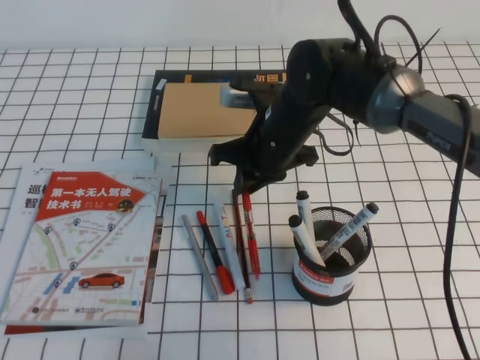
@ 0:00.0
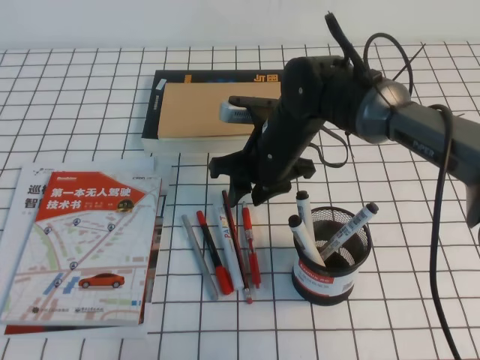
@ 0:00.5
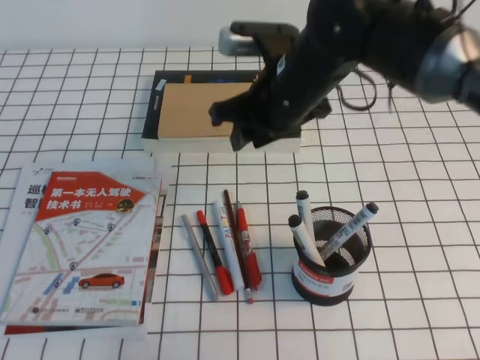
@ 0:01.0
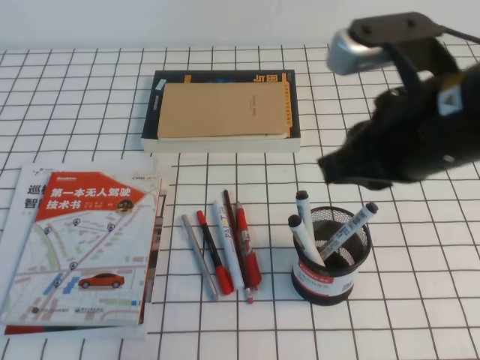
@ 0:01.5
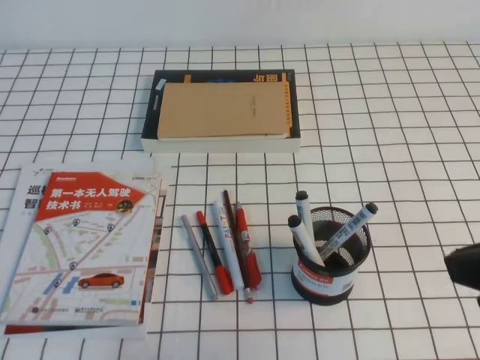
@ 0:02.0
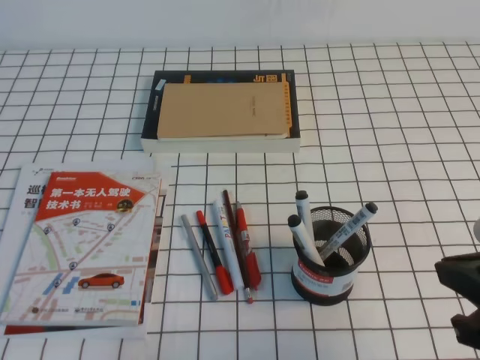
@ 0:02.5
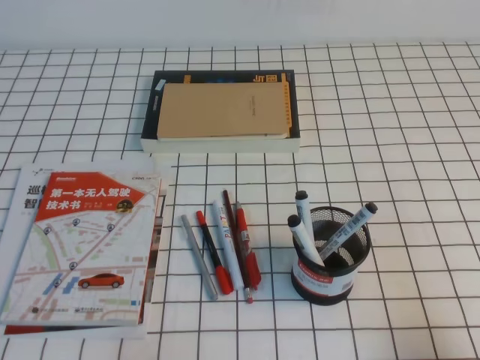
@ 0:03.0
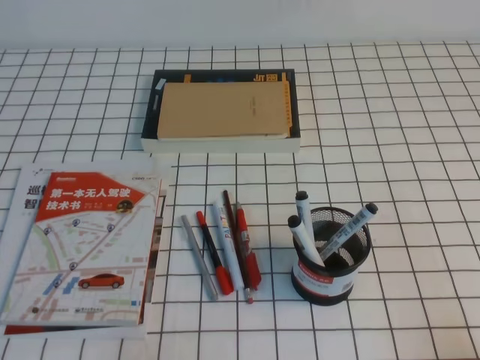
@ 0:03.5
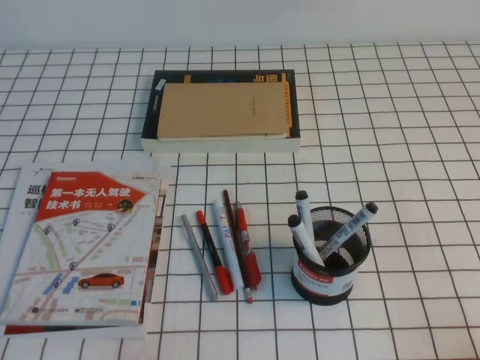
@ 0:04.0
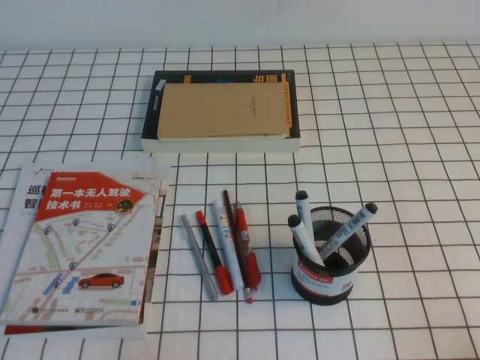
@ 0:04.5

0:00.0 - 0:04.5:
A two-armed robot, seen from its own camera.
Step, 0:00.0 - 0:04.5: Pick up the pen from the pen holder.
0:00.0 - 0:02.0: The right gripper goes approximately 35 cm backward, to the right and upward, and opens, then closes again.
0:02.0 - 0:04.5: The right gripper goes roughly 25 cm downward, to the right and backward.

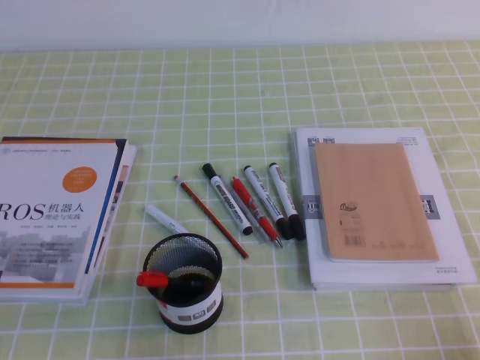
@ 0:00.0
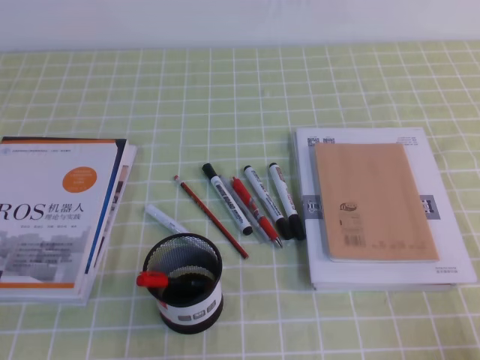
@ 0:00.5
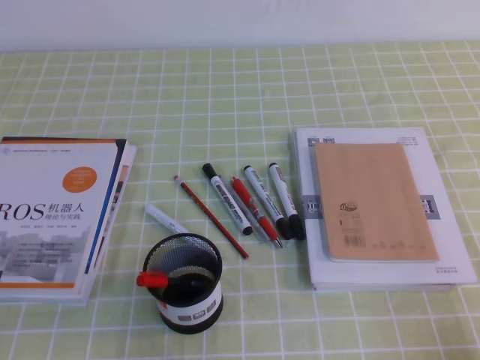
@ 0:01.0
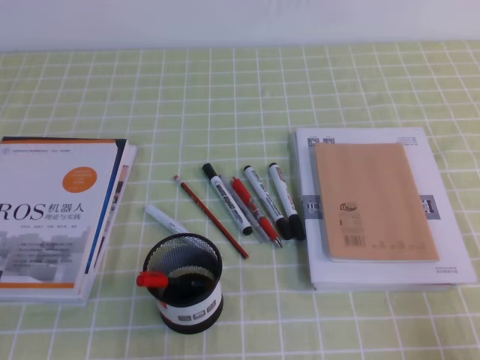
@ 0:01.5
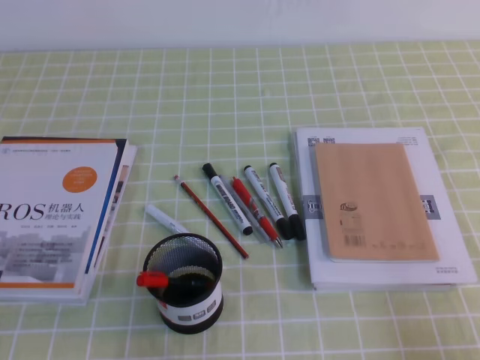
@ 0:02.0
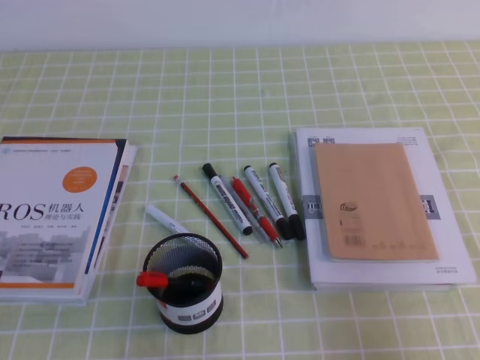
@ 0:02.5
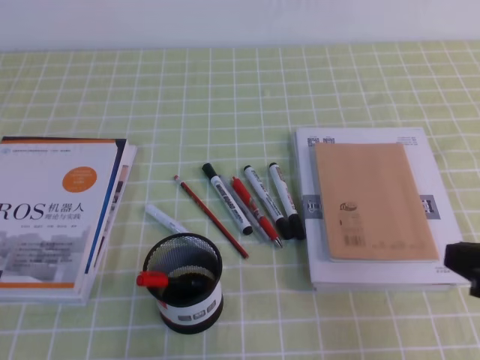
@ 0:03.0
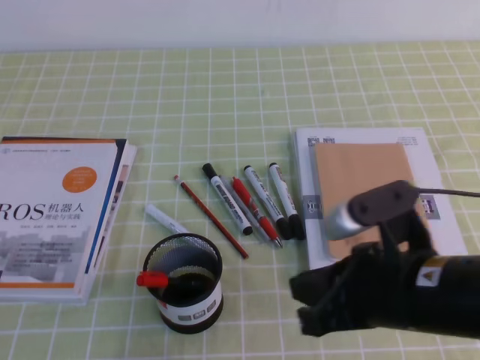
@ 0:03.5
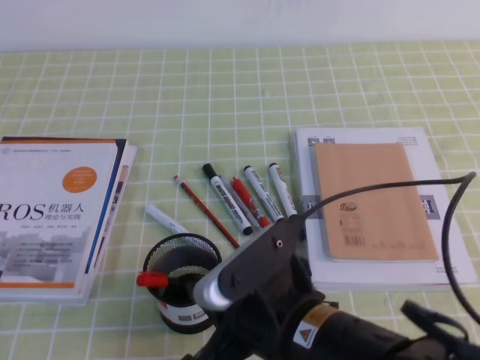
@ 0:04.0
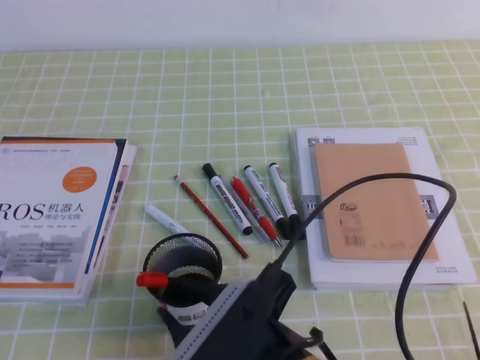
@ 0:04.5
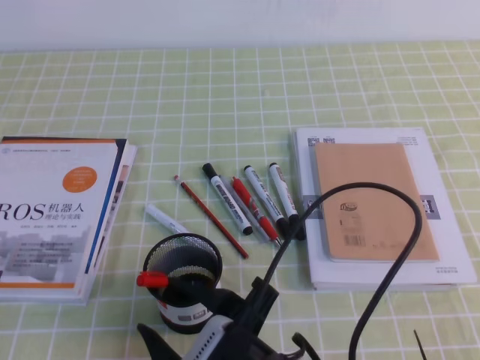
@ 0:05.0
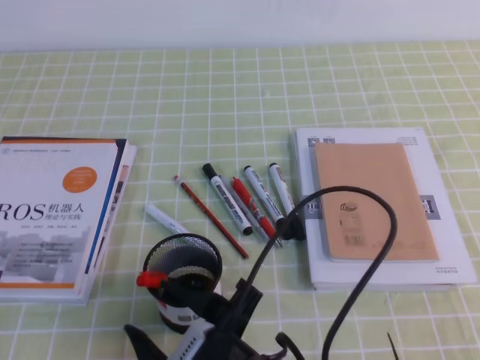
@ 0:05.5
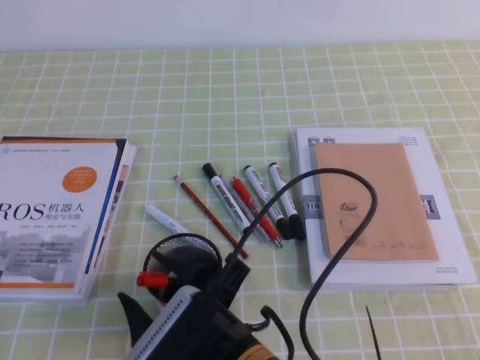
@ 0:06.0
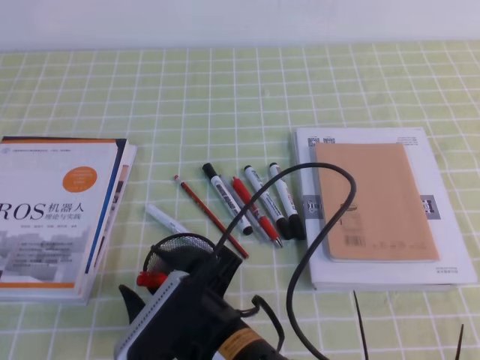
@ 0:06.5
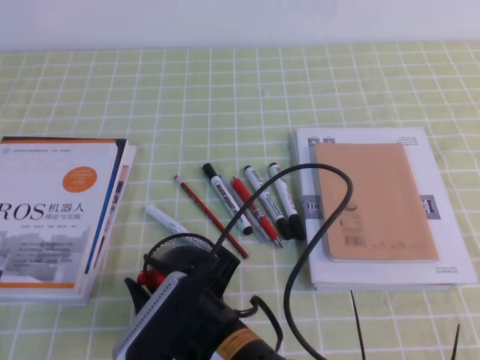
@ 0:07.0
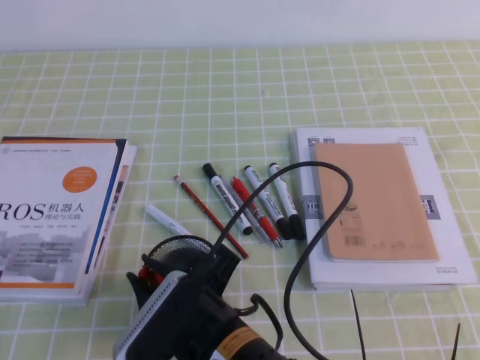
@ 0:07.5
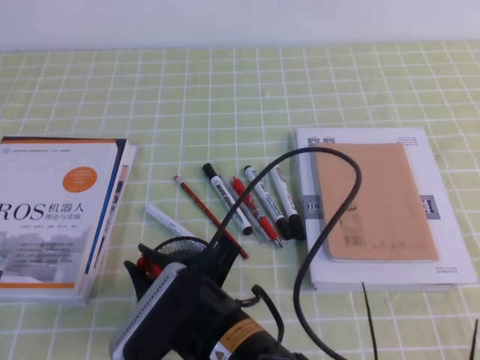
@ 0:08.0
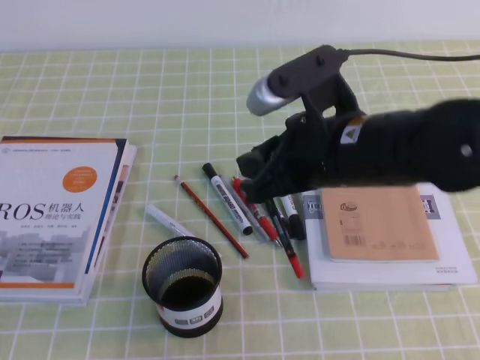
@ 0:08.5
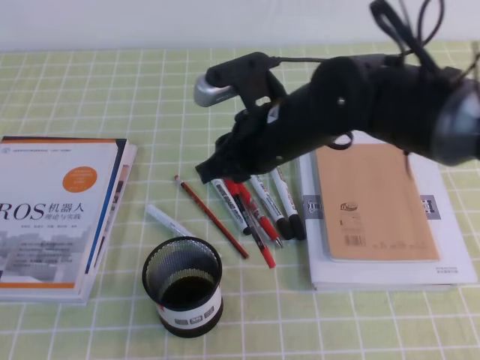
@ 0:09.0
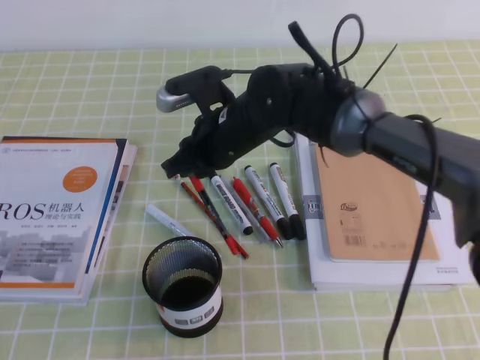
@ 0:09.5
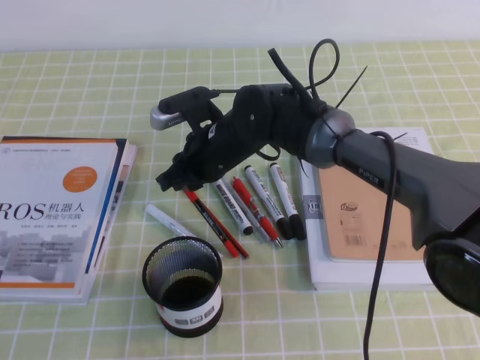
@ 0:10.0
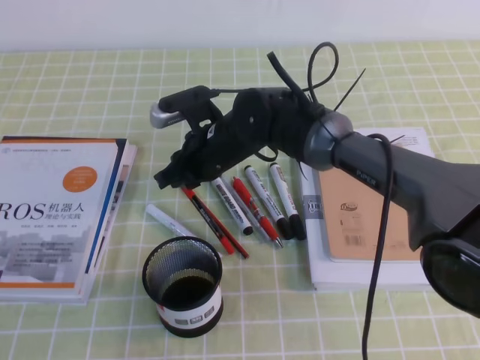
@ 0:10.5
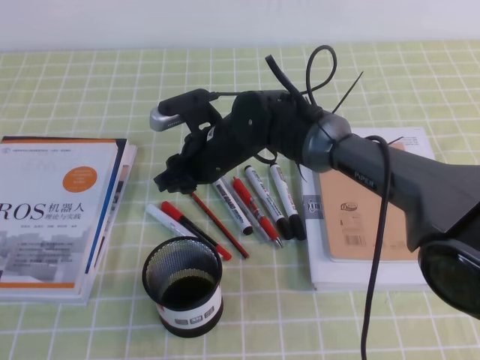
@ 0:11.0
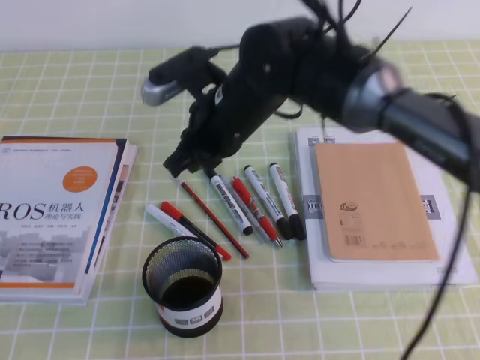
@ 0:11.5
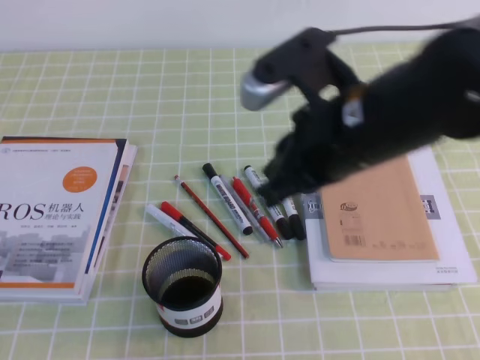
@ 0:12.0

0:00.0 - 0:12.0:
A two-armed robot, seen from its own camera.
Step, 0:00.0 - 0:04.5: Pick up the pen with the right gripper.
Step, 0:05.0 - 0:06.5: Place the pen on the table with the right gripper.
0:02.0 - 0:04.0: The right gripper is displaced to the left by some 25 cm.
0:04.0 - 0:06.0: The right gripper shifts approximately 5 cm to the left, and opens.
0:06.0 - 0:08.0: The right gripper closes up.
0:08.0 - 0:10.0: The right gripper shifts approximately 25 cm forward.
0:10.0 - 0:12.0: The right gripper heads backward, upward and to the right, covering roughly 25 cm.

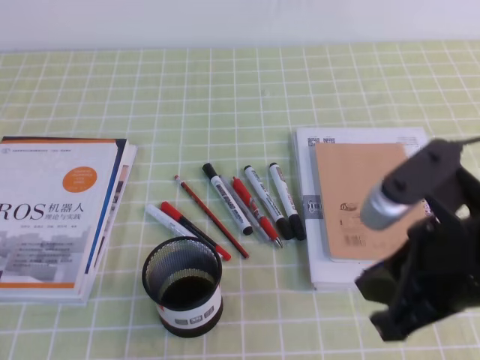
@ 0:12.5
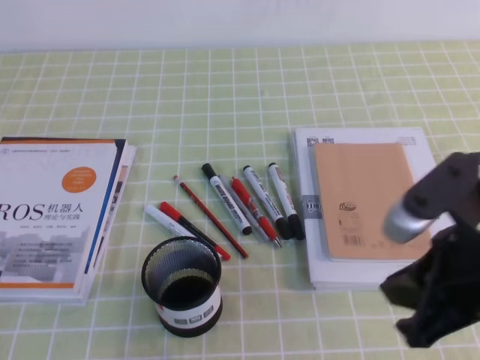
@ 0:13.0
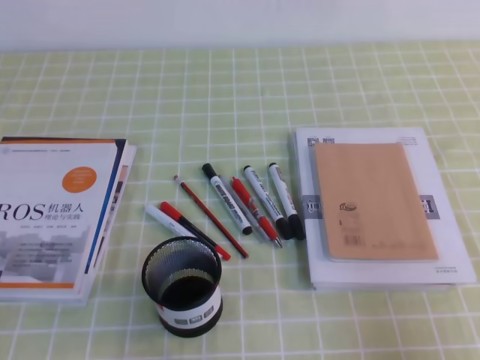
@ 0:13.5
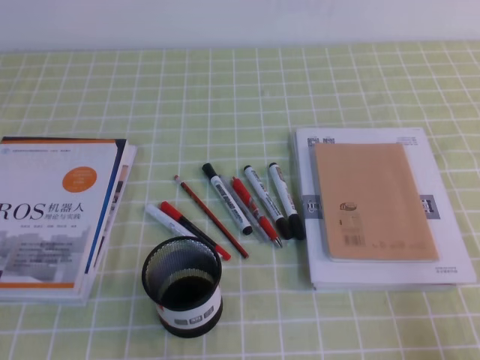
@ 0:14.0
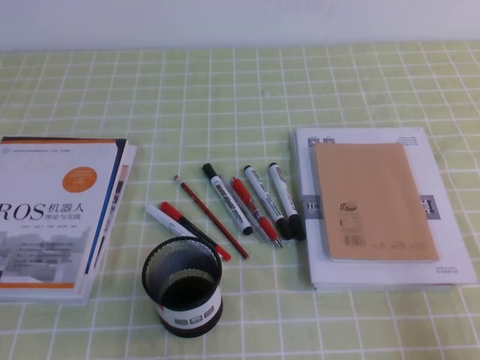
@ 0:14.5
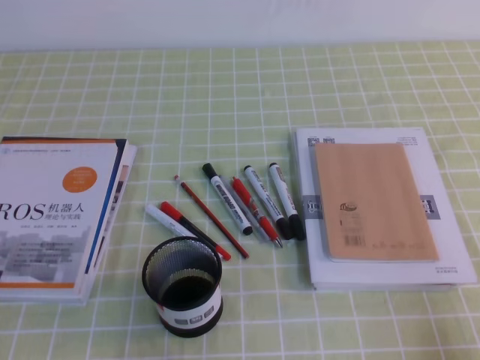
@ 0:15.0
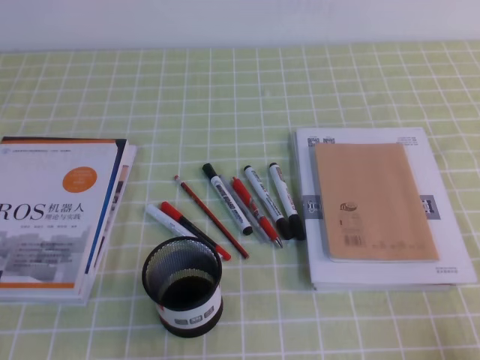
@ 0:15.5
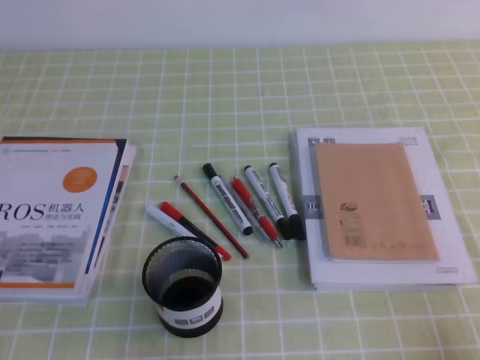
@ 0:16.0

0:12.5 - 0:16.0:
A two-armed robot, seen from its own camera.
0:12.5 - 0:14.5: The right gripper travels to the right, downward and backward by roughly 20 cm.
